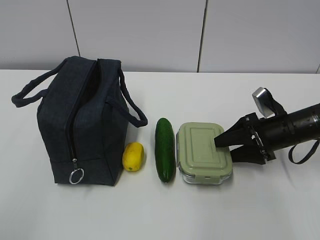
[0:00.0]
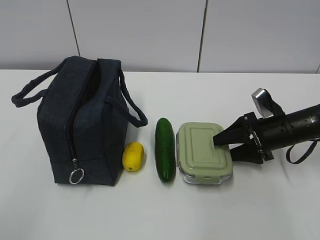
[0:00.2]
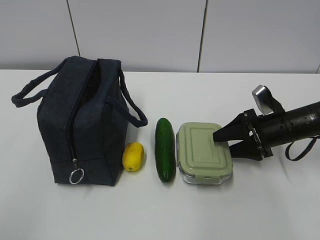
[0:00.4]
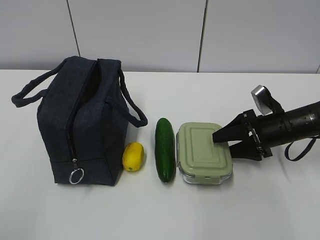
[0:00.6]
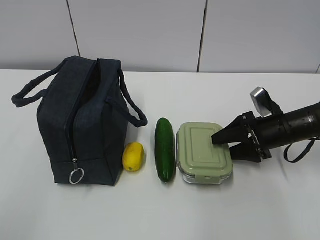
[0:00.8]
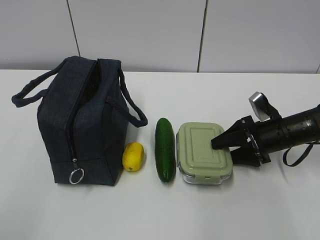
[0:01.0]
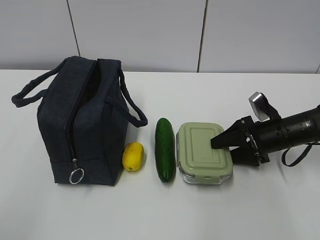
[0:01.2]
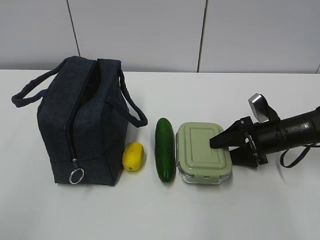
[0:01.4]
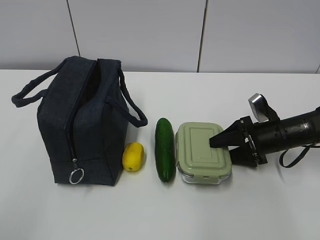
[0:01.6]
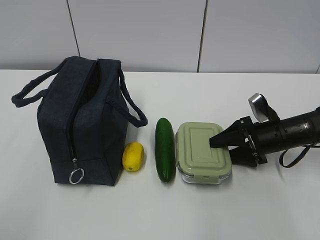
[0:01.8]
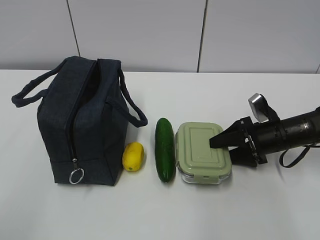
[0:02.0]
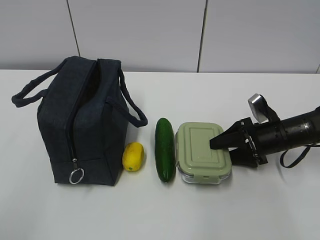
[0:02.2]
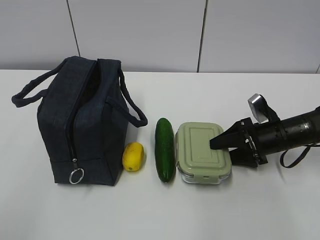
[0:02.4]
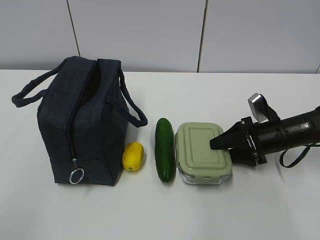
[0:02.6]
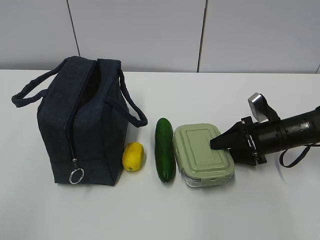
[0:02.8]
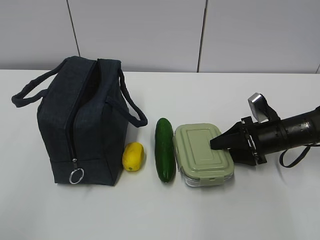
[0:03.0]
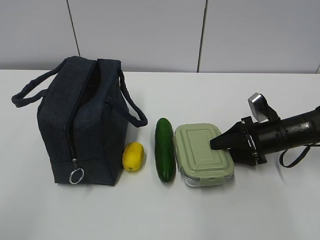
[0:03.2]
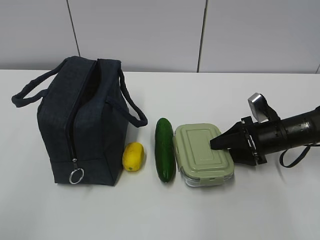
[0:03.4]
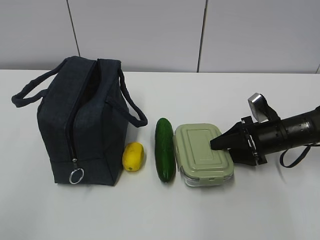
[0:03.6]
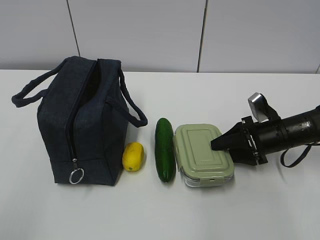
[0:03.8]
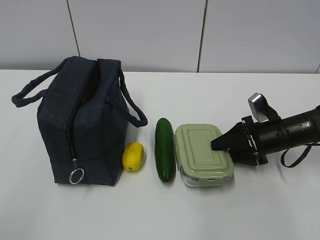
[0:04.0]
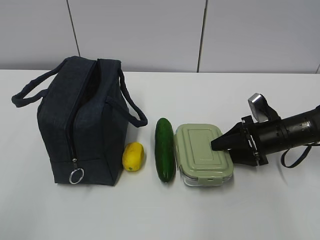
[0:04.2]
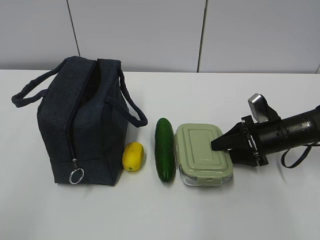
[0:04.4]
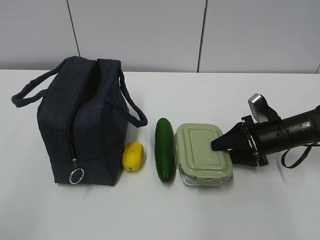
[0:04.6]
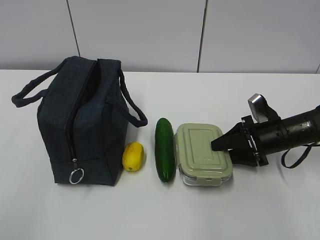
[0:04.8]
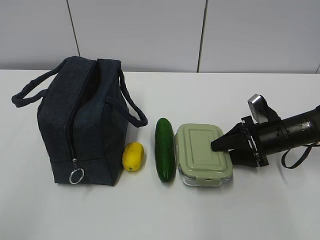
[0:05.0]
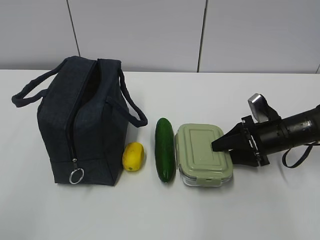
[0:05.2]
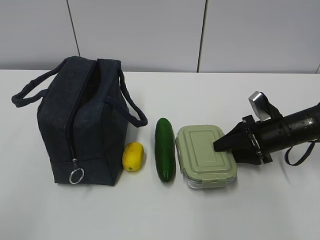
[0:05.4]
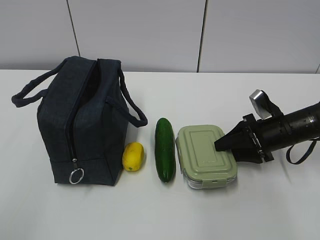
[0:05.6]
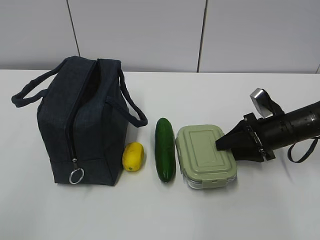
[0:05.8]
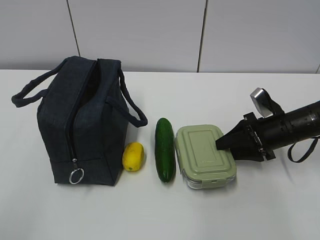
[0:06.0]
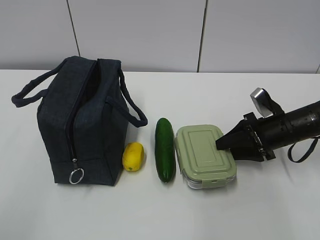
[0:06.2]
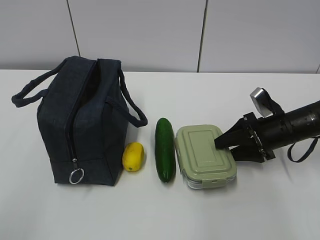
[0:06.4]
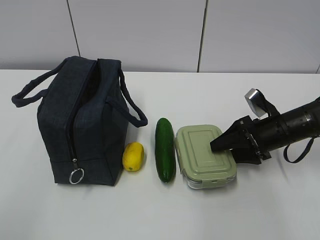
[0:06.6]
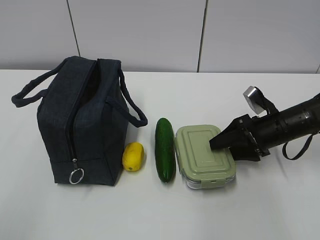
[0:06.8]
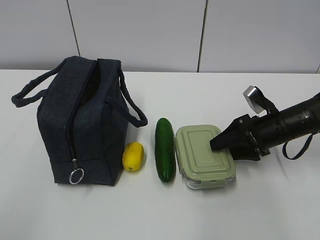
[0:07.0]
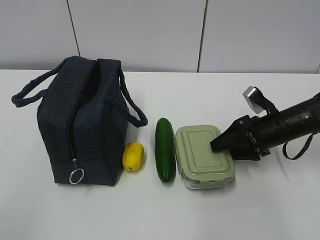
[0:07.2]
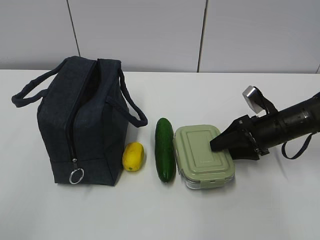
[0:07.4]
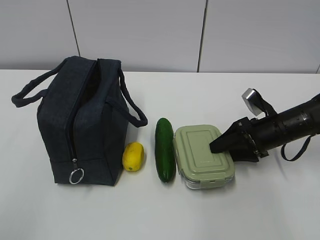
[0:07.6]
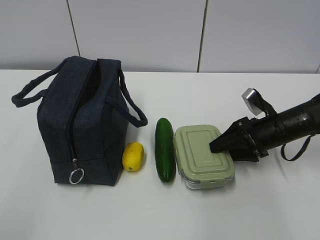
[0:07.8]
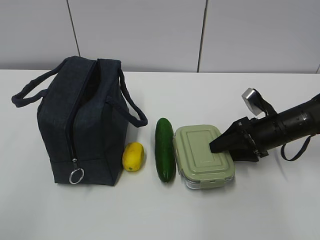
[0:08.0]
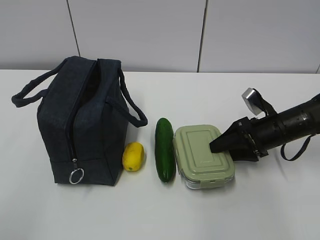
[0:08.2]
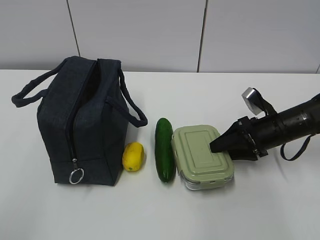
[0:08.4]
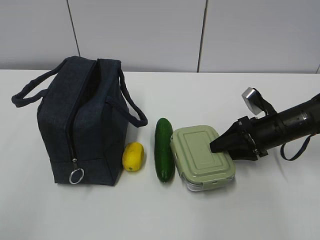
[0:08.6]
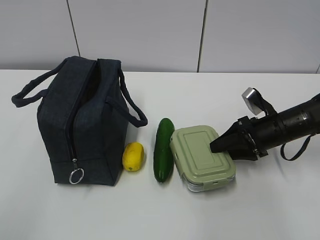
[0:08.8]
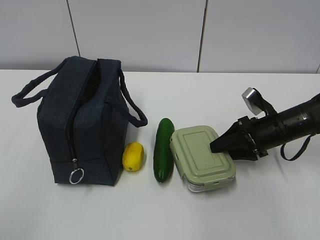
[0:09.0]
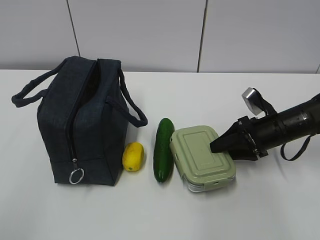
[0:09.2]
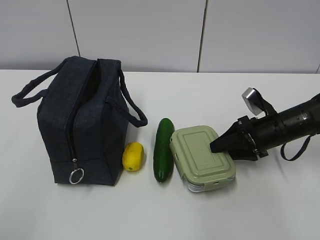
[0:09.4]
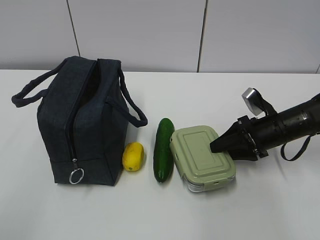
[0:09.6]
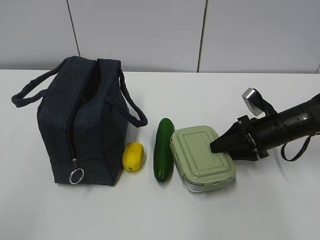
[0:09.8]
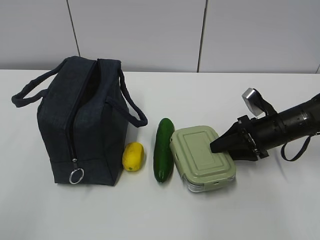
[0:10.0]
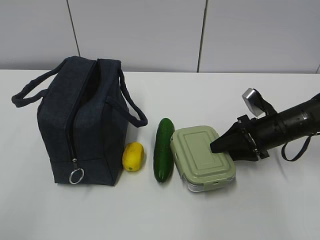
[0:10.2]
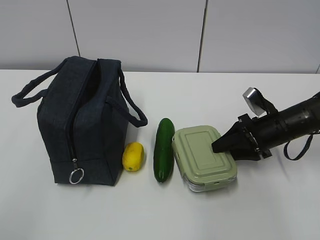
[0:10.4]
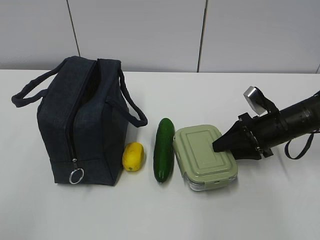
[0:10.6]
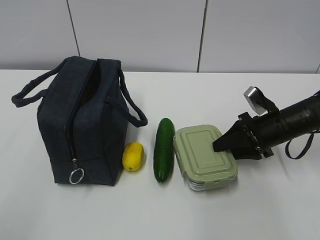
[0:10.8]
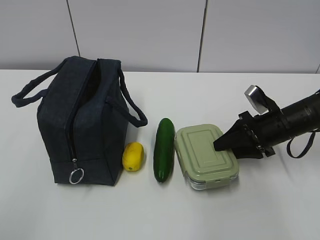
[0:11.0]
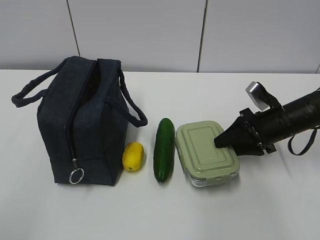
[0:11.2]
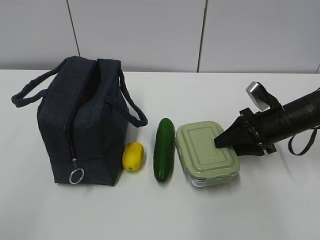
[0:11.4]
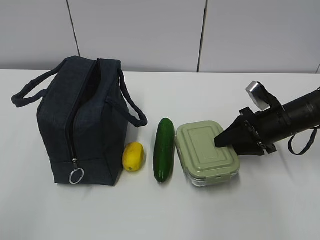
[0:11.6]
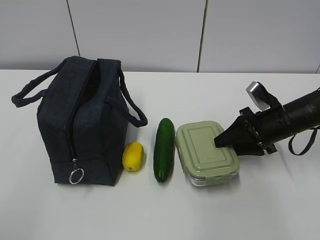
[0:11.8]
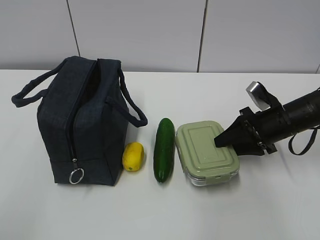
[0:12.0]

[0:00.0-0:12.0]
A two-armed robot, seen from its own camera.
Step, 0:00.0 to 0:10.6: Grab the lunch box with your right hand.
0:00.0 to 0:01.6: The grippers stay close to where they were, moving slightly.
0:01.6 to 0:04.4: Both grippers stay about where they are.
0:04.4 to 0:07.6: The grippers stay close to where they were, moving slightly.
0:07.6 to 0:10.4: Both grippers stay about where they are.
0:10.4 to 0:12.0: The grippers stay close to where they were, moving slightly.

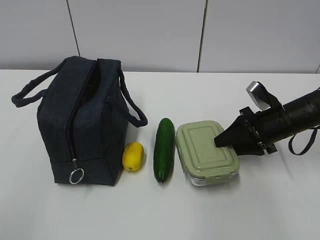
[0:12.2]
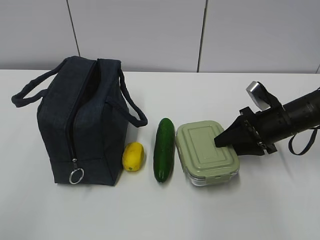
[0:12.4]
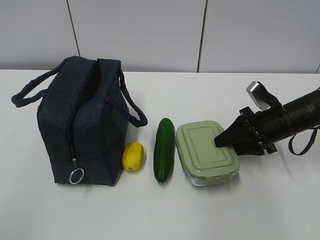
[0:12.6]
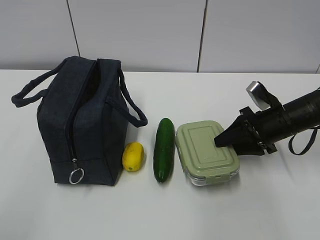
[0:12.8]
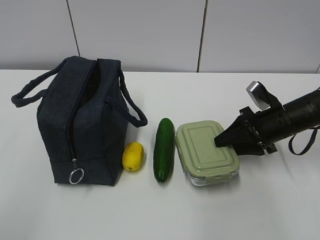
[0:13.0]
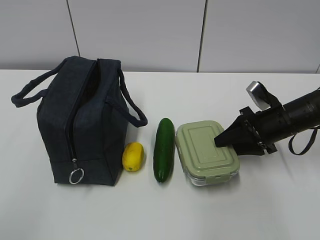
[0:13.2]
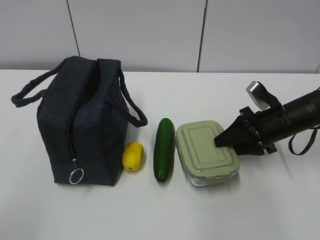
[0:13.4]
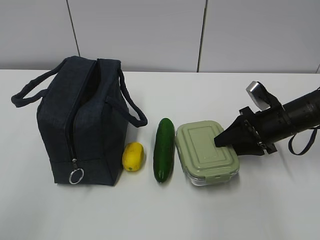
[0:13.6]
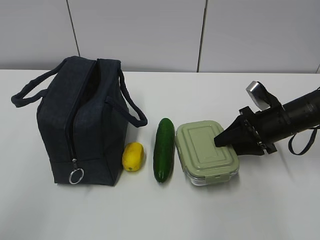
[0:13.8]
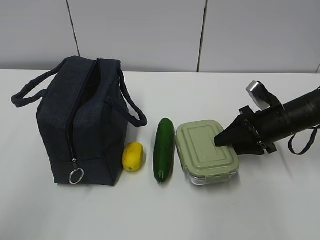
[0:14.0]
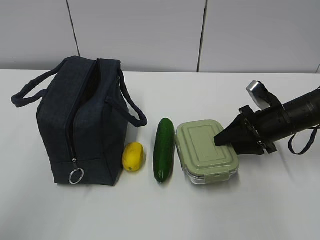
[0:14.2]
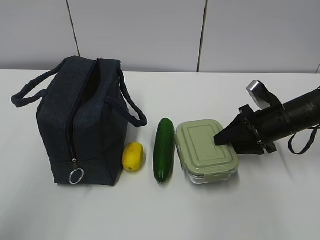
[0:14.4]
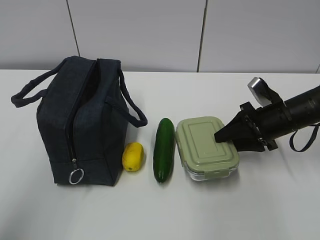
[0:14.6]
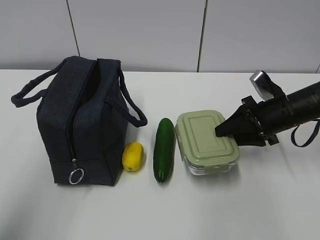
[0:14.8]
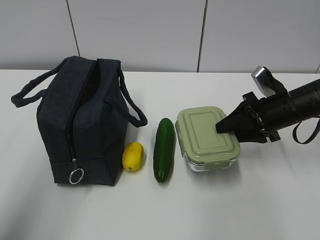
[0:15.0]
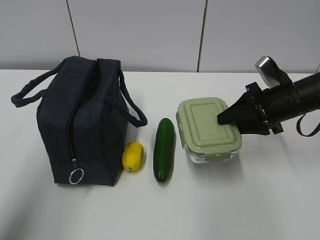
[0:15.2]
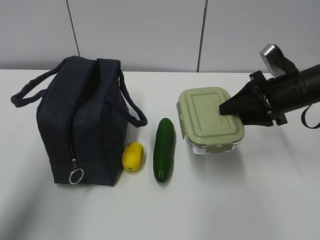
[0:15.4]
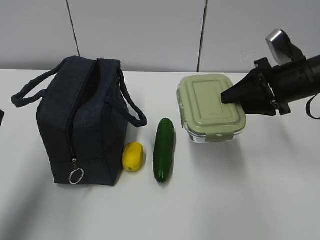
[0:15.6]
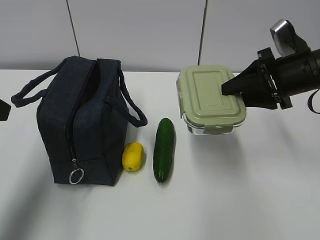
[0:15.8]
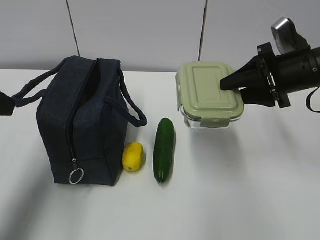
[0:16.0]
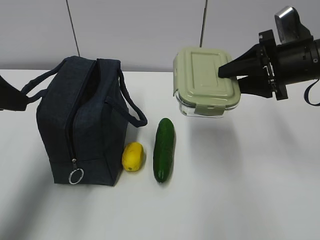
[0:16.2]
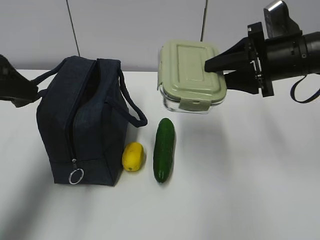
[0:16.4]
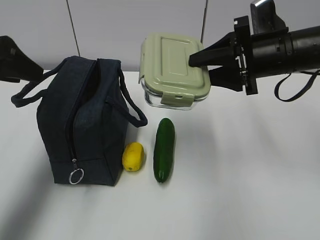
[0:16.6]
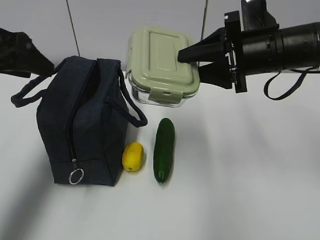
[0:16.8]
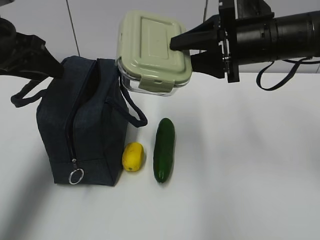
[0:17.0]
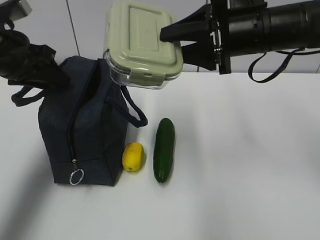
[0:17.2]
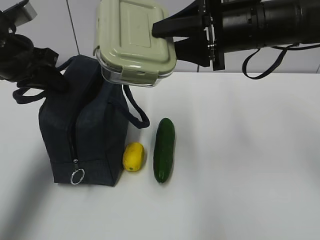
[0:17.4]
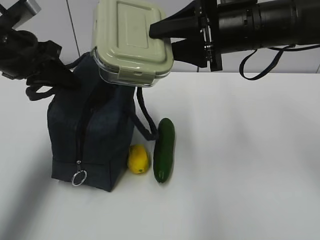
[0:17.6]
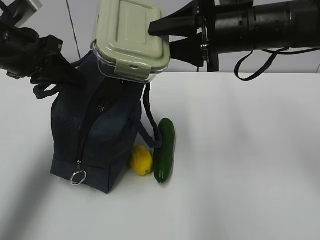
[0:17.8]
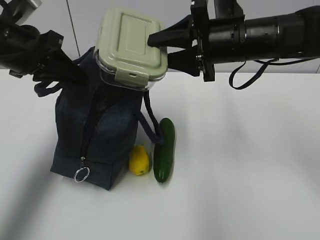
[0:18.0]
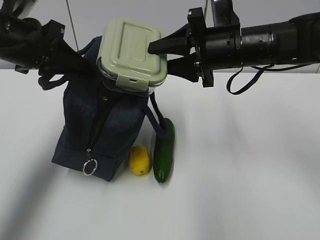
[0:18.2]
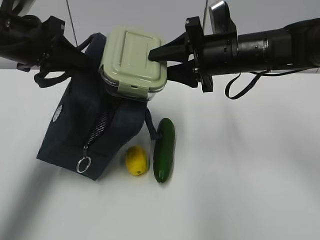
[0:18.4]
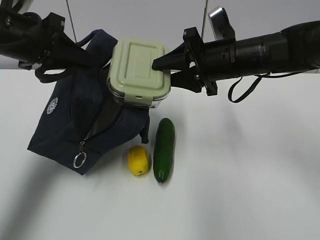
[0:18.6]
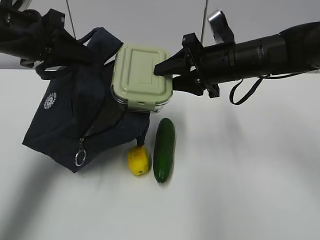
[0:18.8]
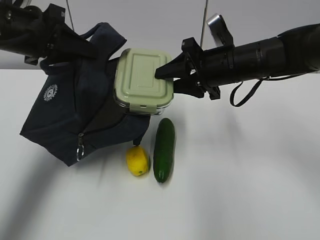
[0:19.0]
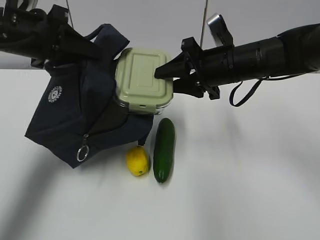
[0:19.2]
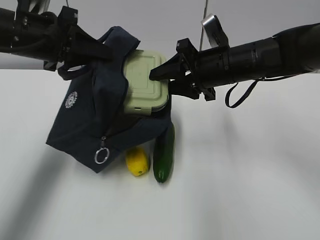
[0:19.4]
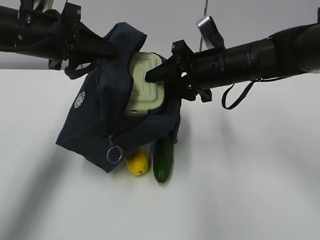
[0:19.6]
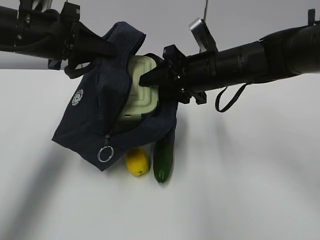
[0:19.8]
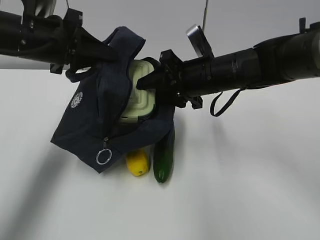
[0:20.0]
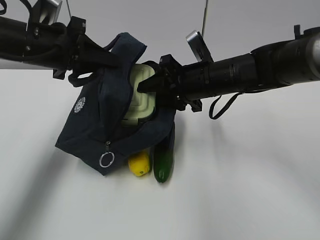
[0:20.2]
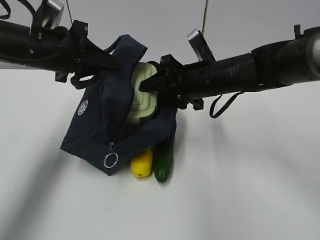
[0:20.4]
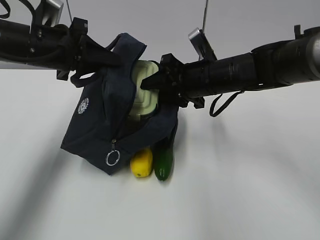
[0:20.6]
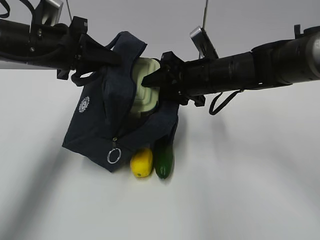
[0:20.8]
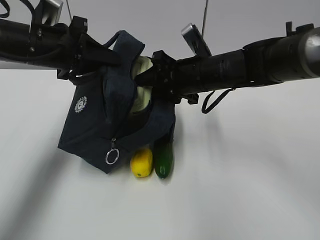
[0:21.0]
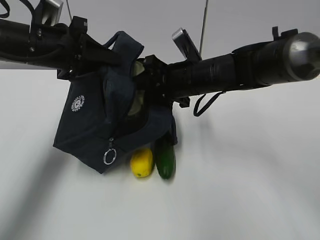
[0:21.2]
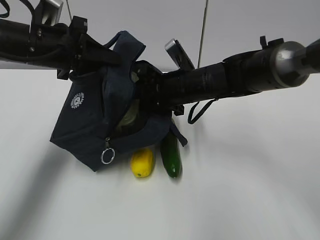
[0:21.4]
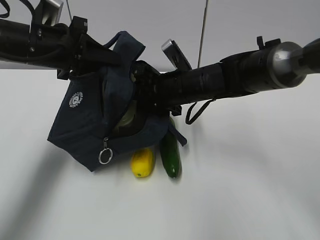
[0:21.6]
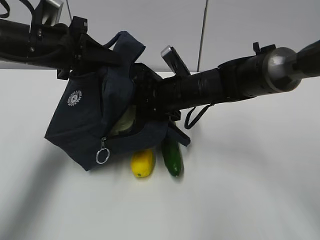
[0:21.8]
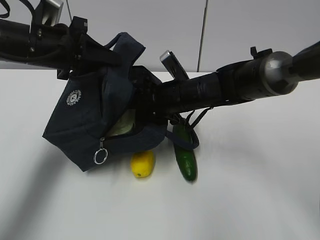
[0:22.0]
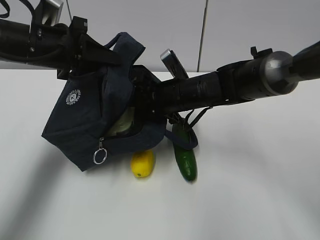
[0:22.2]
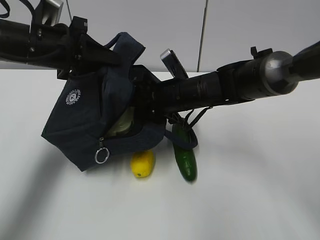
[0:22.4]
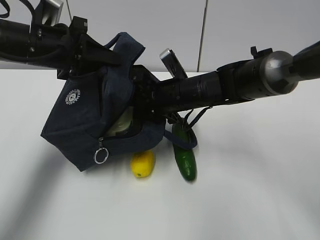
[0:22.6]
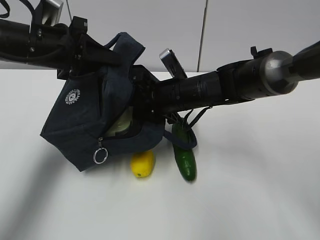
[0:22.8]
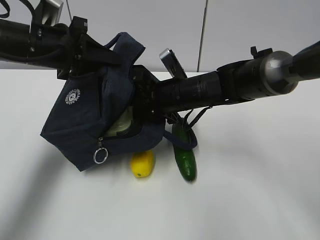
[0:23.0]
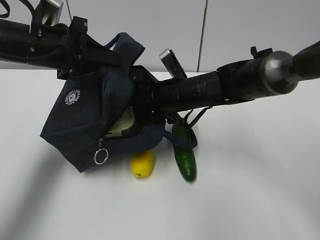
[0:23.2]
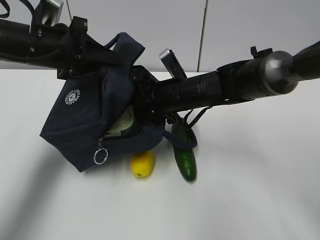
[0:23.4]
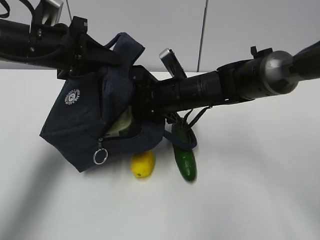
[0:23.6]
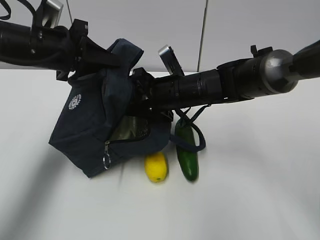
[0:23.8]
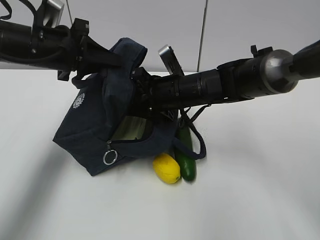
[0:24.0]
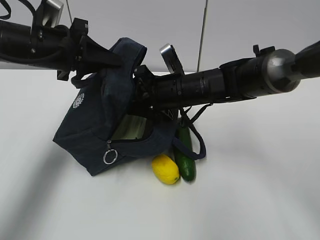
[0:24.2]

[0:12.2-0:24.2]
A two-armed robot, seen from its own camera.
Step, 0:14.0 to 0:18.6: Place it into the bag with your right hand.
Step, 0:18.8 to 0:23.6: Grab the cucumber with your right hand.
0:13.8 to 0:15.2: The left gripper moves forward, roughly 10 cm.
0:15.2 to 0:16.6: The right gripper goes approximately 10 cm upward and to the left; the left gripper heads forward, covering about 15 cm.
0:16.6 to 0:18.2: The left gripper goes about 5 cm forward, and closes its fingers. The right gripper shifts about 5 cm to the left.
0:19.8 to 0:21.2: The grippers make only small movements.
0:21.2 to 0:24.2: There are only small adjustments of the grippers.
